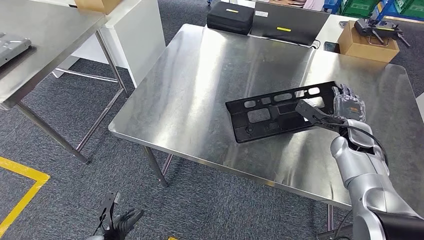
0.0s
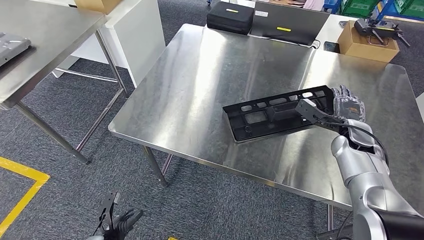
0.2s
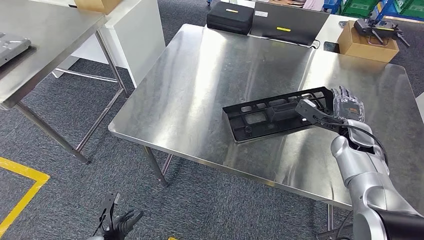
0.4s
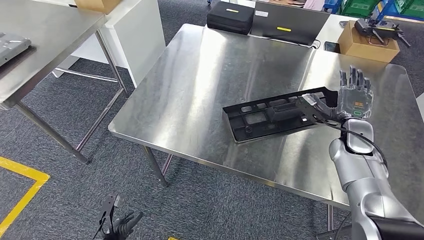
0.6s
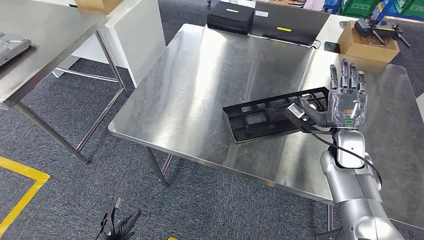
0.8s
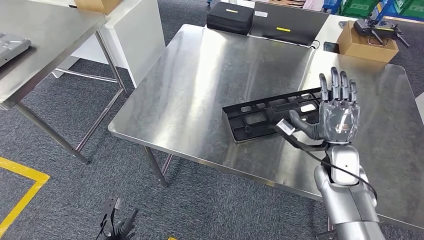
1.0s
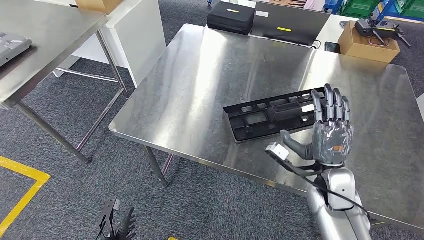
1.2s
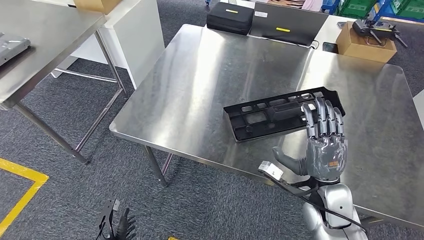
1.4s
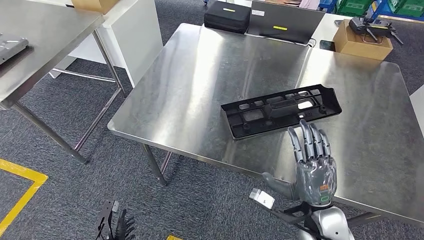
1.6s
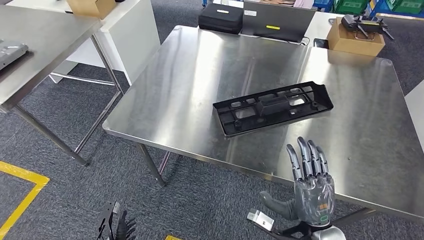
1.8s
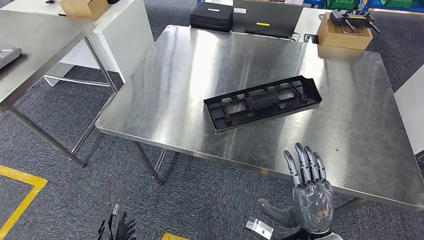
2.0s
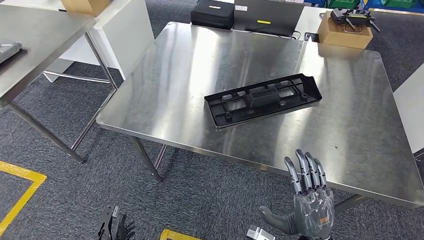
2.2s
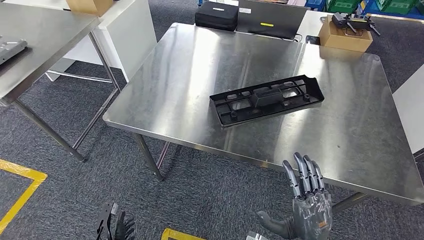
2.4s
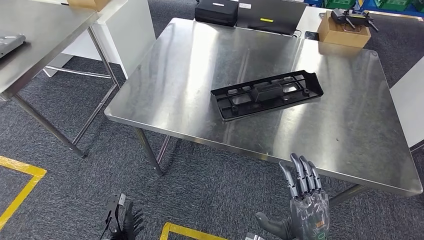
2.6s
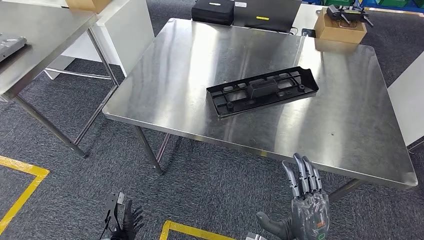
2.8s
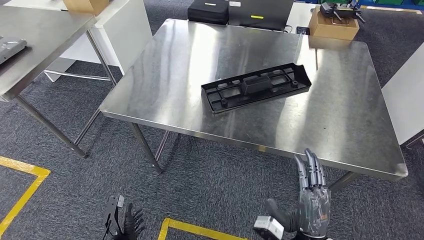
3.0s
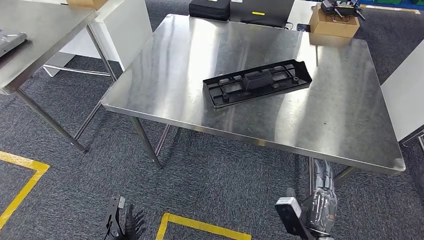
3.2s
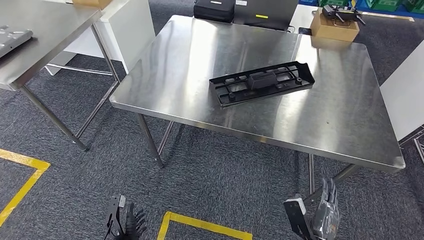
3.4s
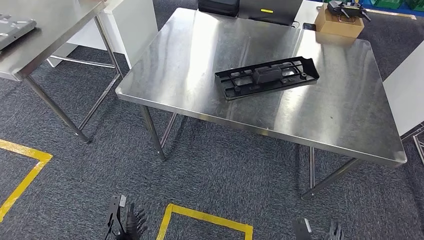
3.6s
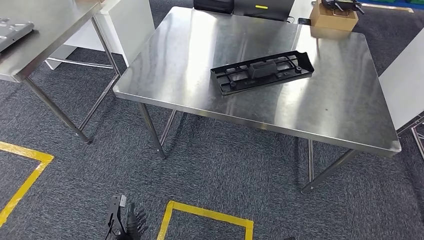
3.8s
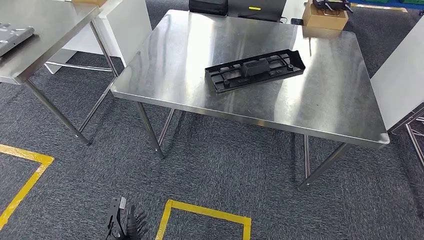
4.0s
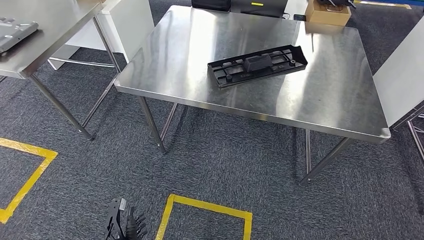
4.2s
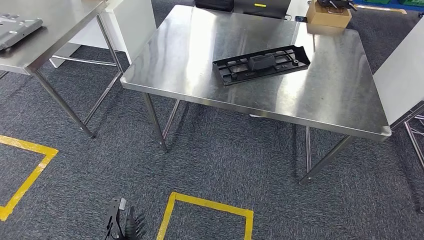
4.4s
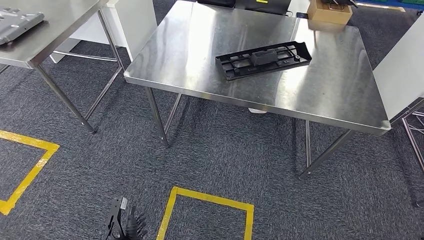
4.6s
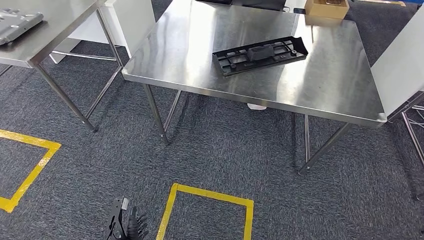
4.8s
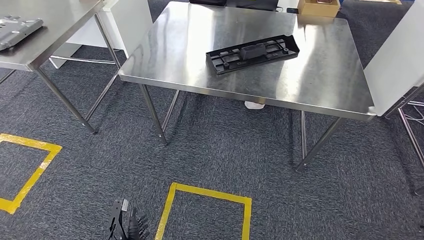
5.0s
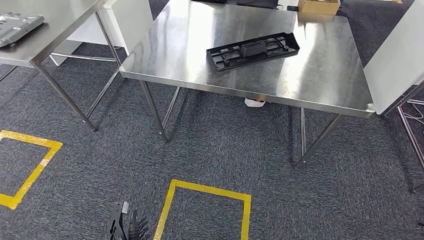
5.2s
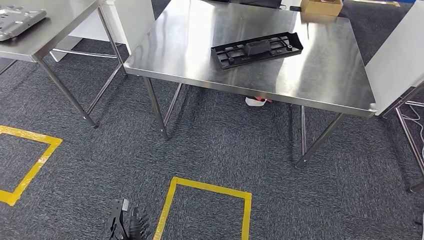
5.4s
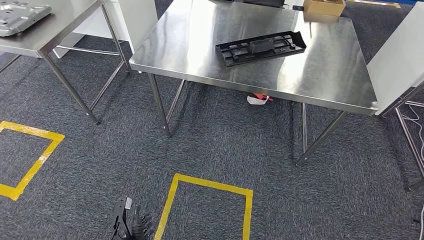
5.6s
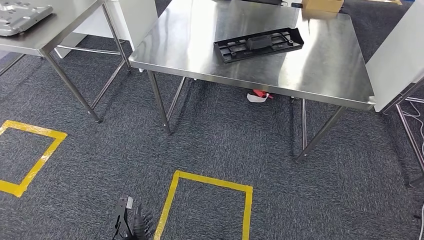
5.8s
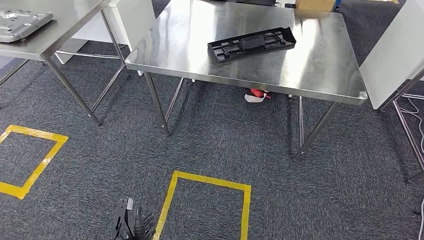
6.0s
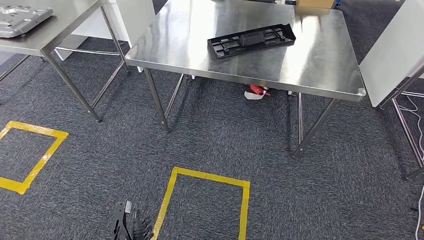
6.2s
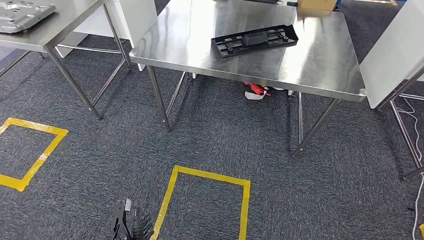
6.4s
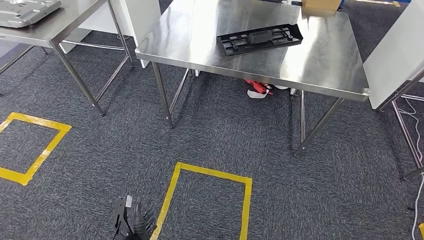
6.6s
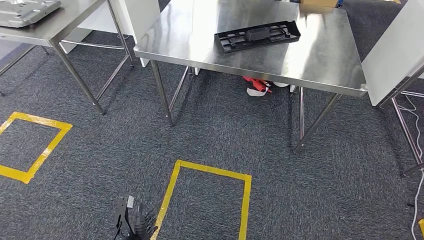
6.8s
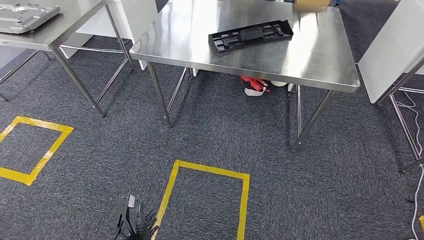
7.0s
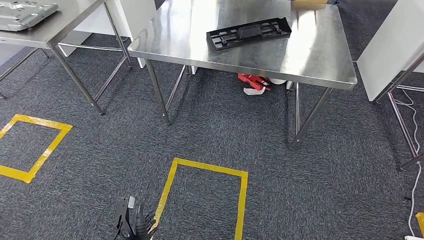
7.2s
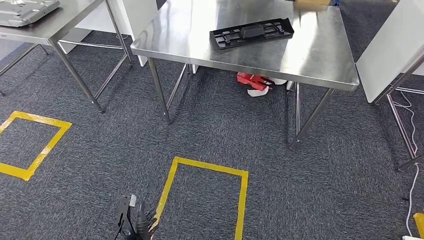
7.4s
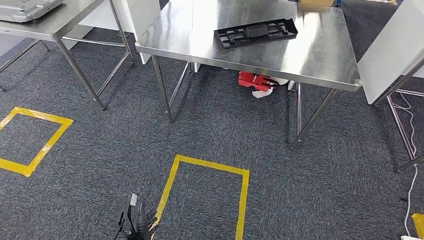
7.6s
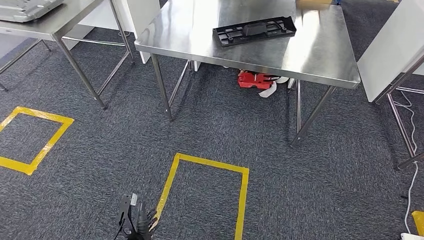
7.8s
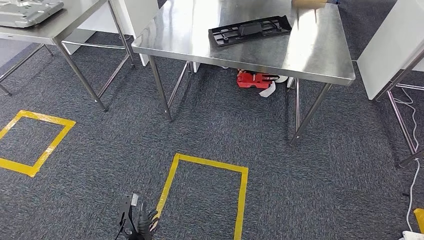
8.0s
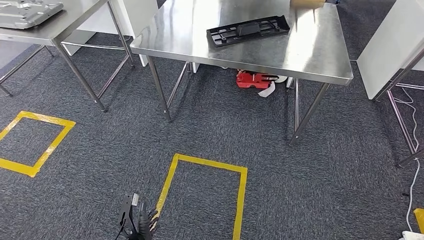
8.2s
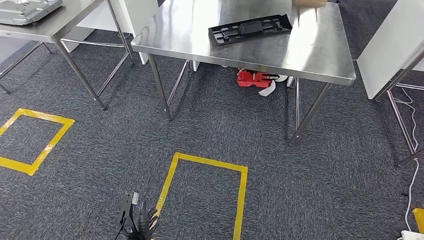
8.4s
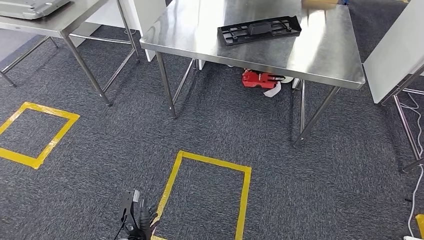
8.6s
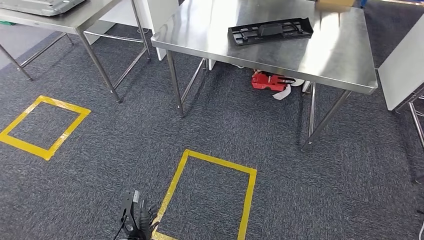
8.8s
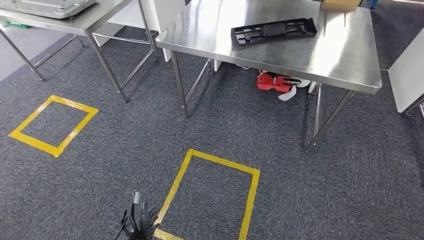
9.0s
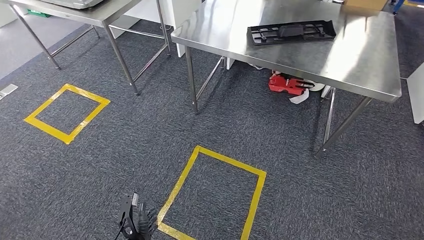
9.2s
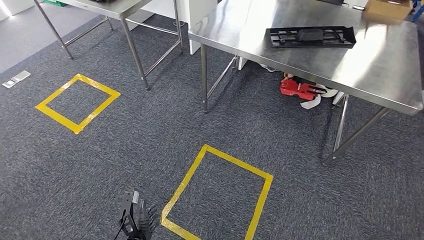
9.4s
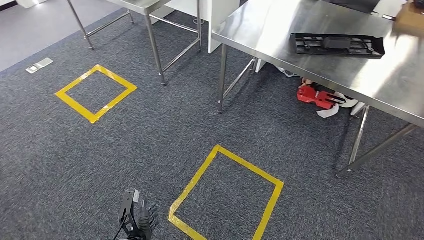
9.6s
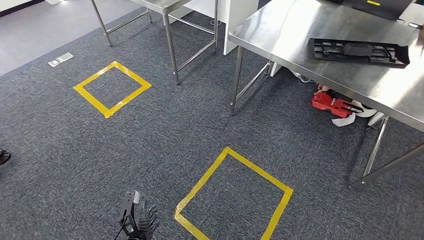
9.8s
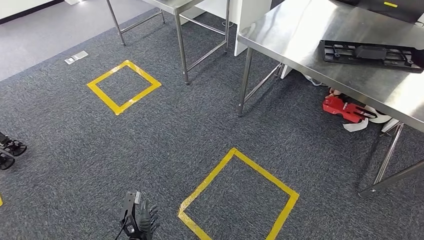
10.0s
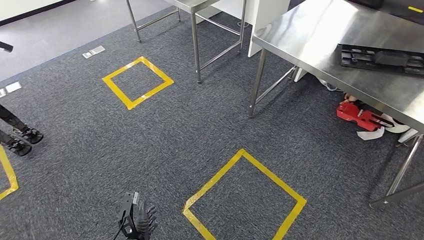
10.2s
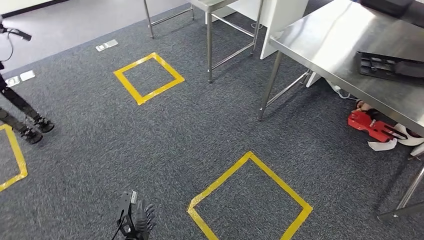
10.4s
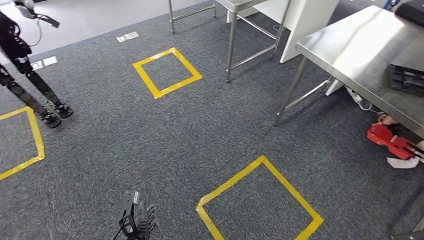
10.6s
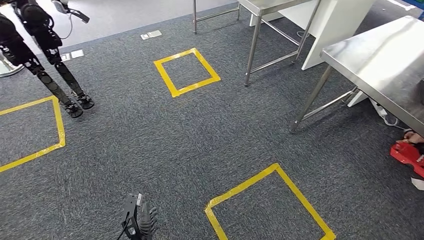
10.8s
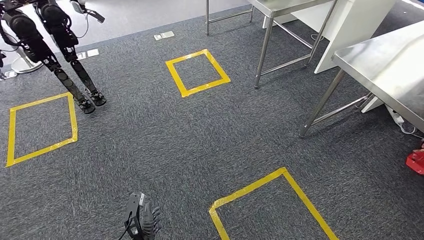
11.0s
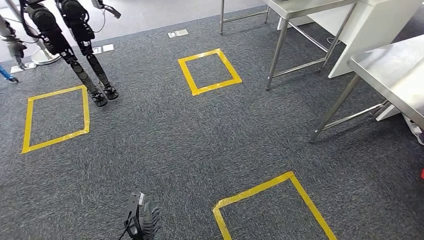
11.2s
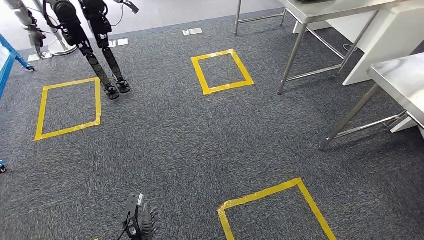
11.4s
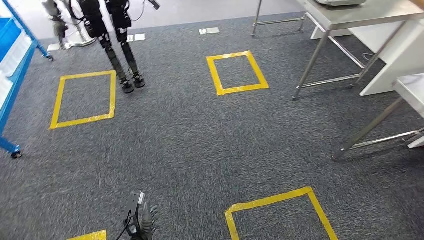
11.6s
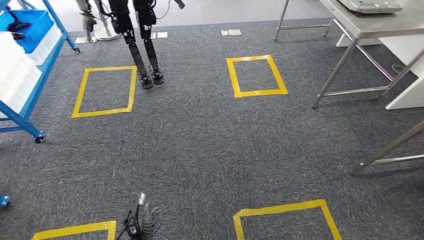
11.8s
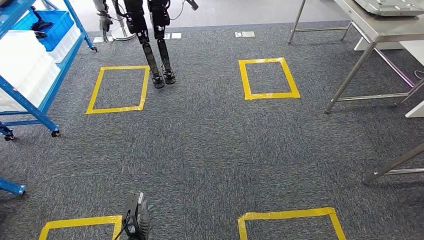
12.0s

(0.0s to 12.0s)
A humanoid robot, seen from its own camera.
Step, 0.0s - 3.0s: Insert the large material into the corresponding hole on the workbench.

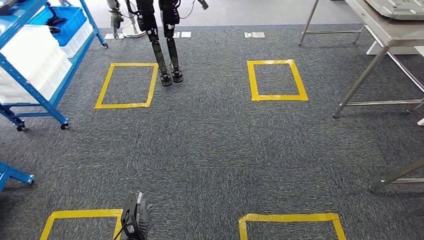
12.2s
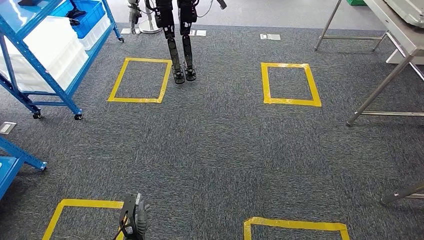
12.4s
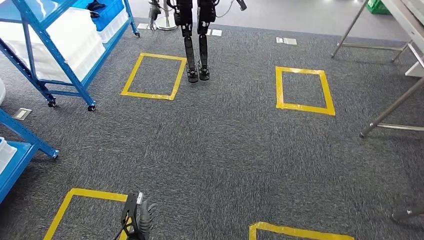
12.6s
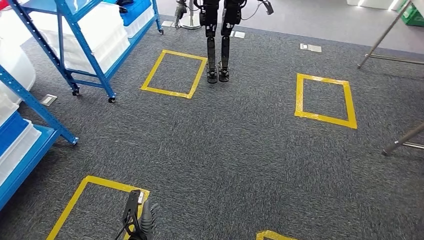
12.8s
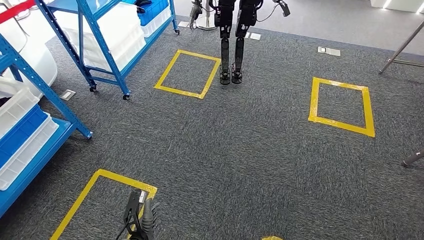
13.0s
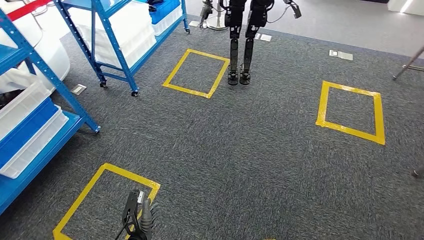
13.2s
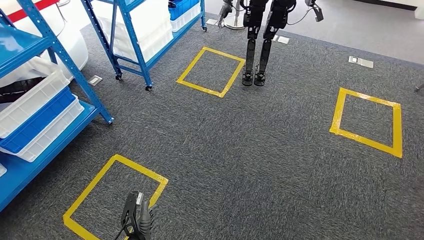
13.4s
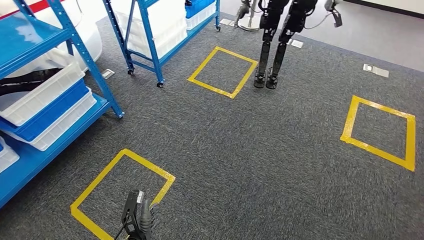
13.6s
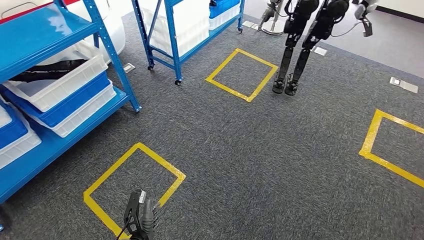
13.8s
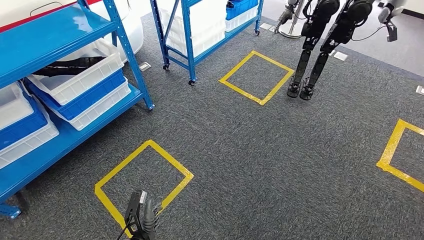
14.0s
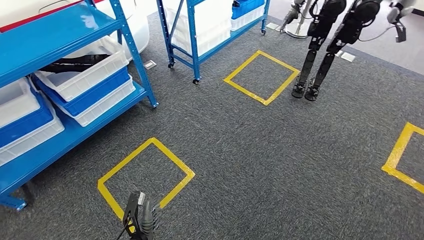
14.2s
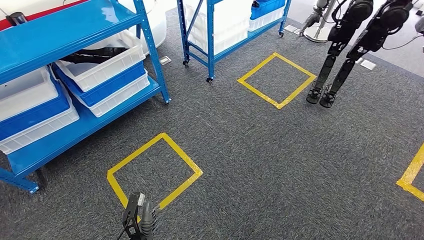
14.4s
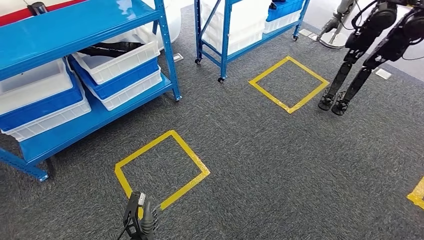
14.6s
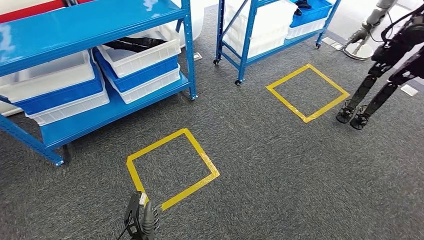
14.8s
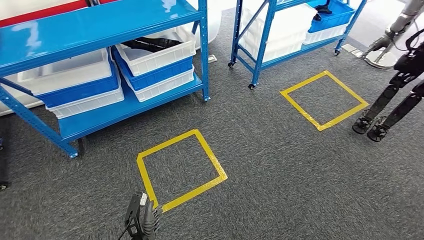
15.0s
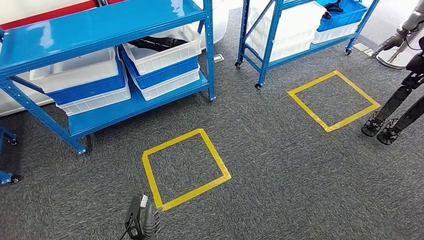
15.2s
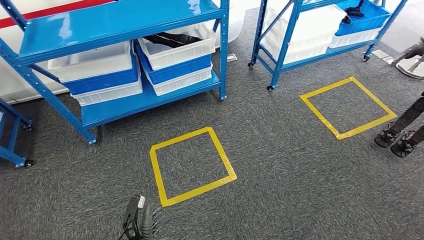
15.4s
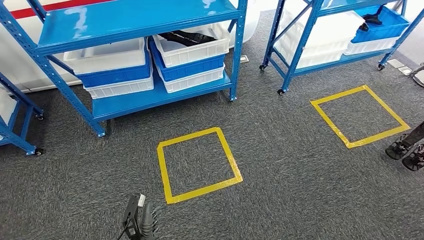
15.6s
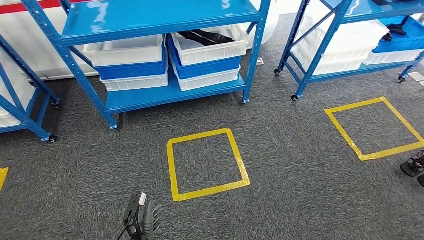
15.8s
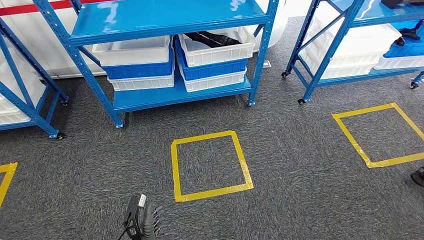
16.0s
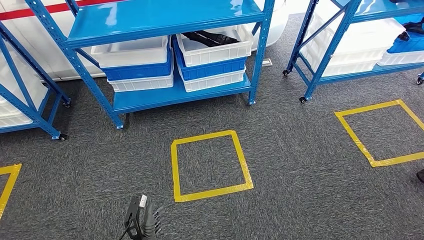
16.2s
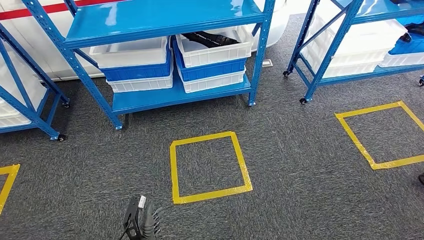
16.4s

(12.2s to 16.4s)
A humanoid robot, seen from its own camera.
Step, 12.2s - 16.2s: Move to the initial position of the shelf.
